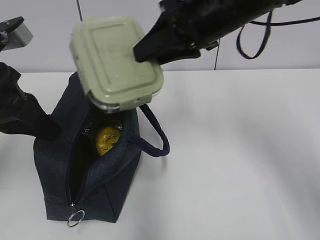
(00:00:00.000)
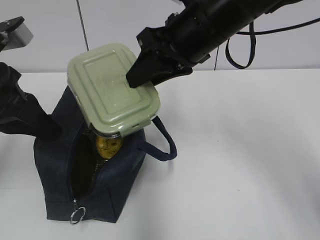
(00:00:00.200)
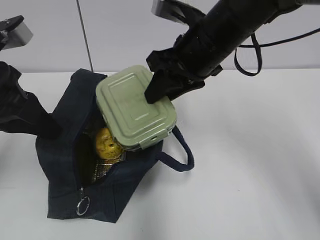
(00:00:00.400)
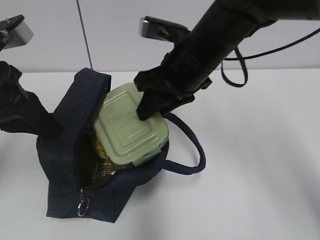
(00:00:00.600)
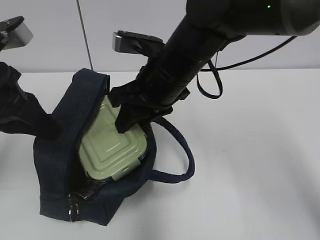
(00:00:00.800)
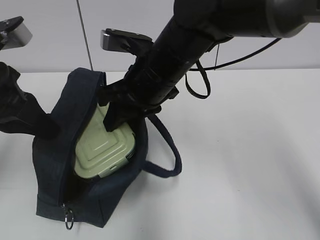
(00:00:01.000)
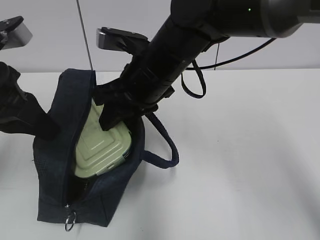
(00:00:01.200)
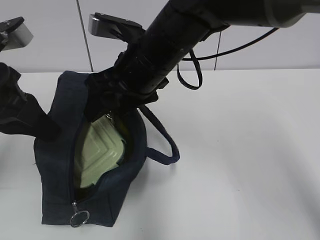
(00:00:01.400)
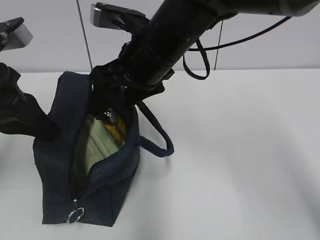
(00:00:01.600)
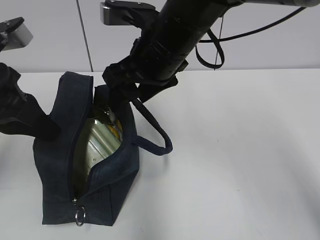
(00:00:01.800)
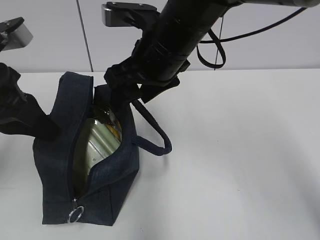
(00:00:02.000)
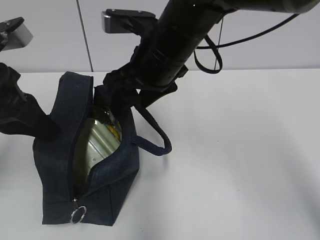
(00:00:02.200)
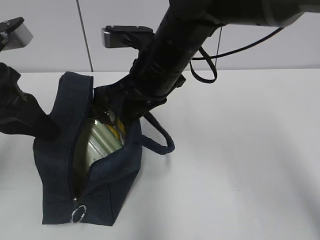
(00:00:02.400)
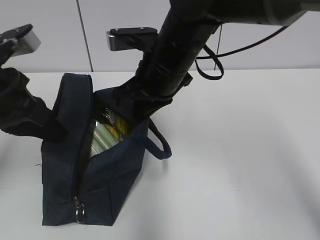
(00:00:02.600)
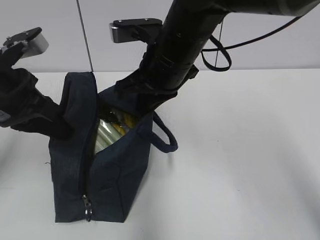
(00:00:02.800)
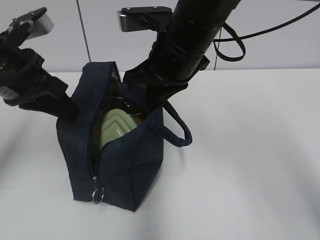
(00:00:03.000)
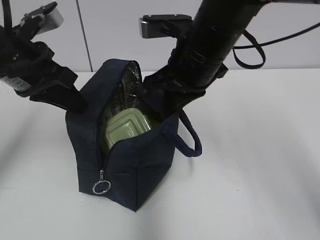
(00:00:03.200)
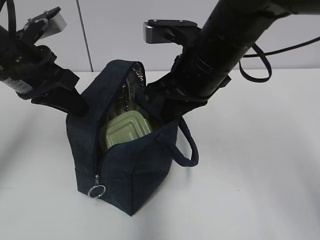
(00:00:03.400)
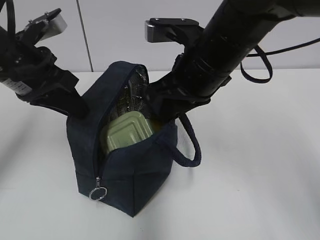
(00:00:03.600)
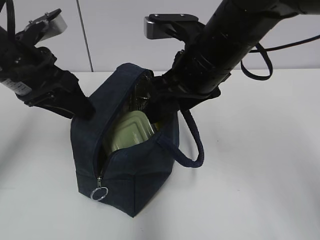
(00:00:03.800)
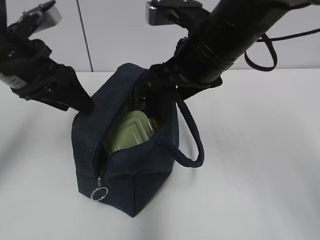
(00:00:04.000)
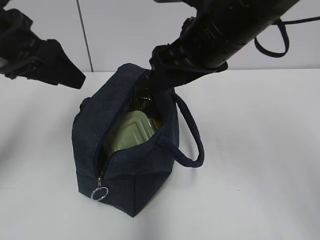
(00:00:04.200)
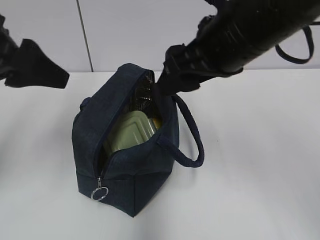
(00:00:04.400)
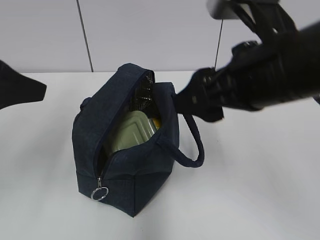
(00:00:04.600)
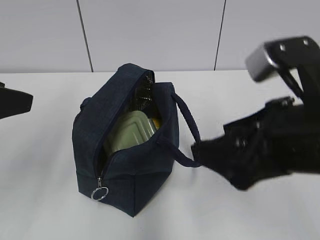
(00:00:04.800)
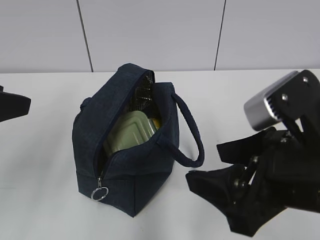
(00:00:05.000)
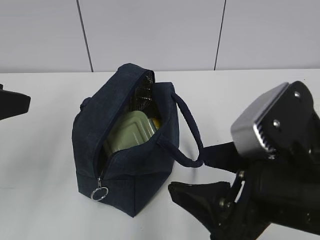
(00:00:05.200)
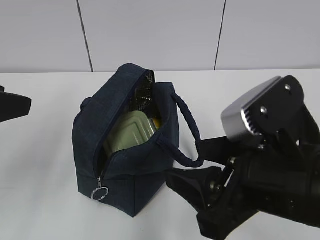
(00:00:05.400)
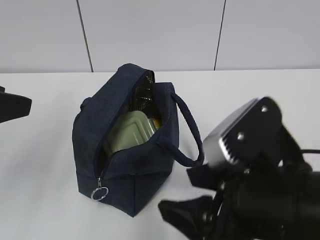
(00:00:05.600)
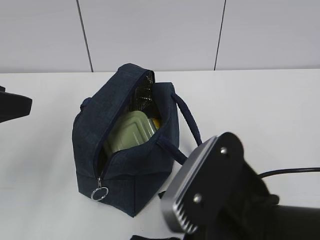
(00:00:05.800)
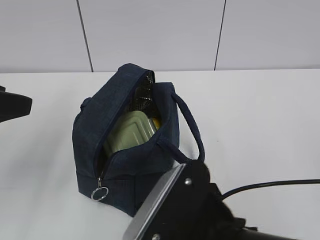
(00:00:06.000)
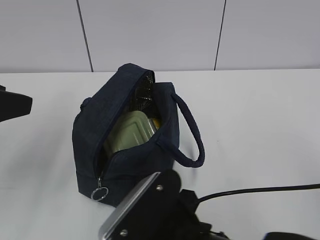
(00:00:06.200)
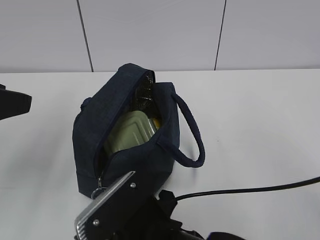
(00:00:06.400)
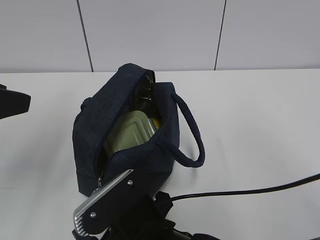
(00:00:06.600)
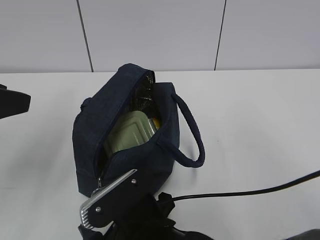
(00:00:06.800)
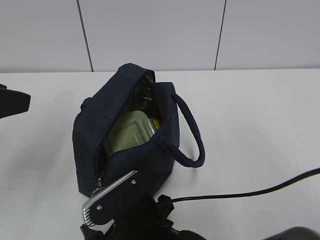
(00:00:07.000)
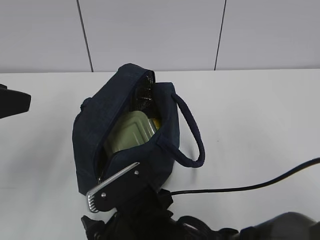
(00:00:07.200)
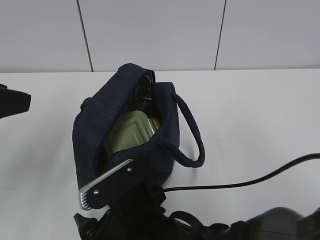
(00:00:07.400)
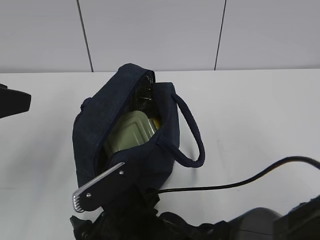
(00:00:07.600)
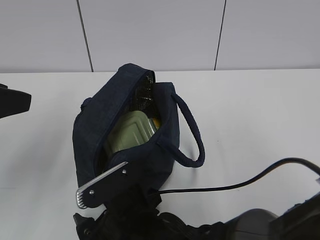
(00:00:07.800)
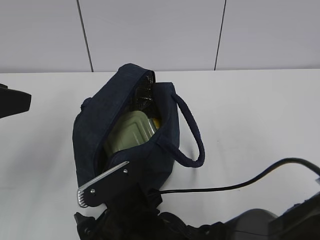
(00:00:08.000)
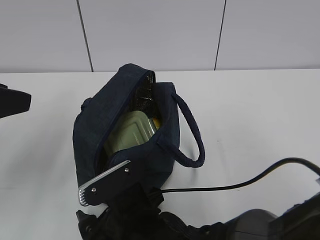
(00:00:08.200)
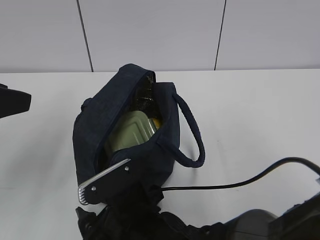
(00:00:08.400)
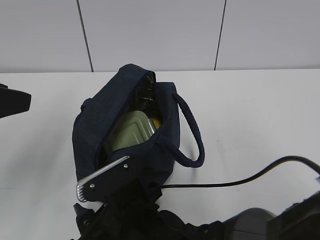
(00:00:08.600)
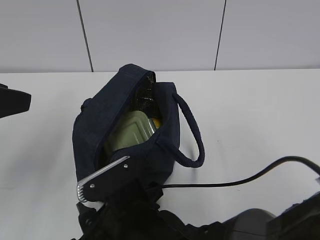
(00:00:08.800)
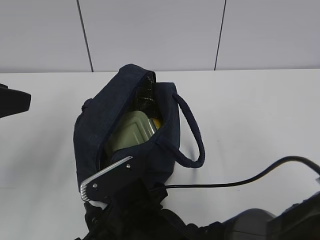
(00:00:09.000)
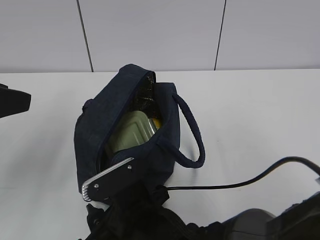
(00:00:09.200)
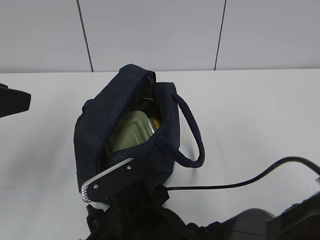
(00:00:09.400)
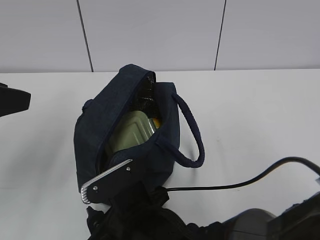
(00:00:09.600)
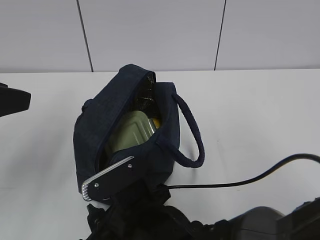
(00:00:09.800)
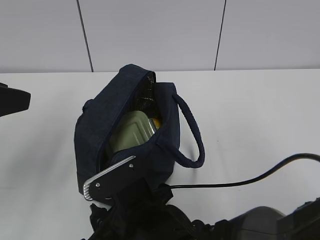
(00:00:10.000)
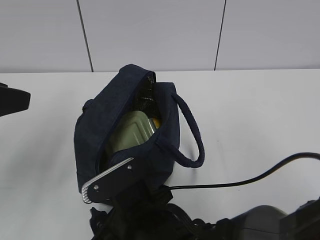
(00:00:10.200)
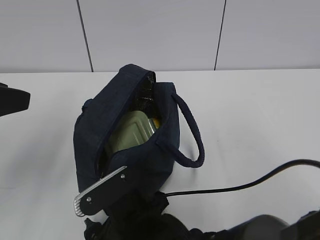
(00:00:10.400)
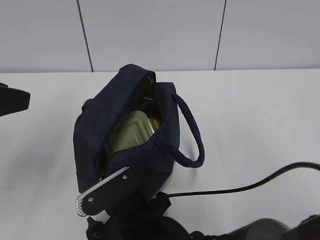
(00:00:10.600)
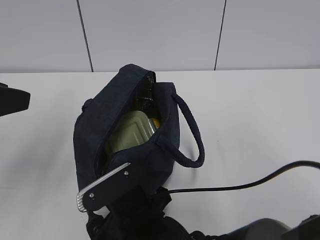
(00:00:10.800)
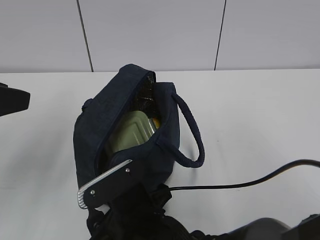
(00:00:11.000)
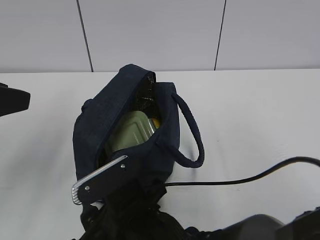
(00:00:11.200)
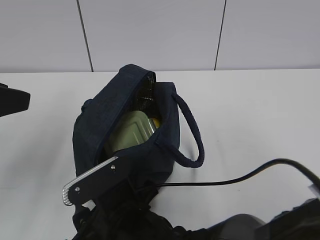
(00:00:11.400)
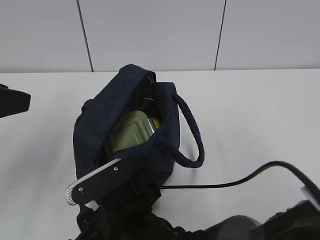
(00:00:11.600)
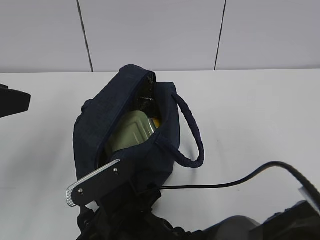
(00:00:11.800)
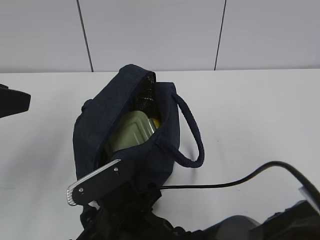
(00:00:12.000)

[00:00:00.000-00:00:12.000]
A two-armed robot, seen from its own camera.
Step, 00:00:01.600 to 00:00:02.200: Grab the lunch bag with your right hand.
Step, 00:00:02.600 to 00:00:03.800: Move the lunch bag to the right.
00:00:00.000 to 00:00:01.600: The right gripper moves to the left, approximately 10 cm, and opens up.
00:00:01.600 to 00:00:03.000: The right gripper closes up.
00:00:03.000 to 00:00:04.400: The right gripper goes approximately 10 cm backward and to the right, and opens up; the left gripper shifts by some 5 cm, and opens.
00:00:04.400 to 00:00:06.000: The left gripper travels backward by approximately 5 cm. Meanwhile the right gripper travels backward and downward by some 20 cm.
00:00:06.000 to 00:00:07.600: The right gripper heads downward, to the left and forward, covering about 15 cm.
00:00:07.600 to 00:00:12.000: The grippers move only a little.

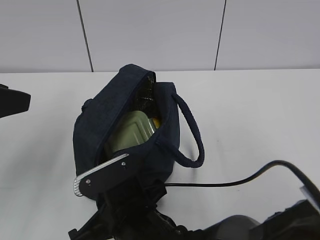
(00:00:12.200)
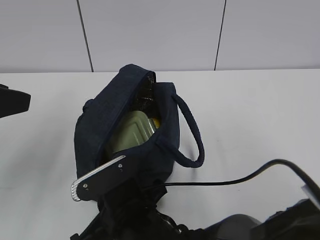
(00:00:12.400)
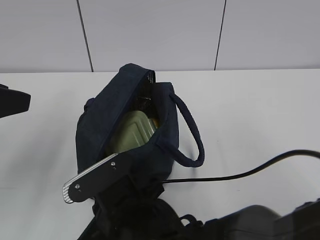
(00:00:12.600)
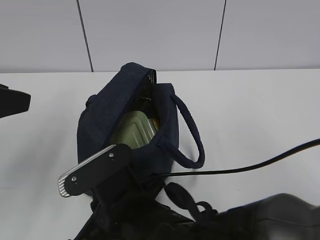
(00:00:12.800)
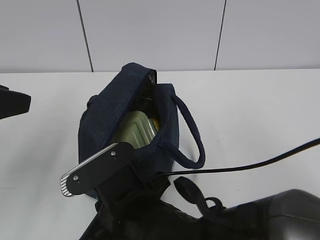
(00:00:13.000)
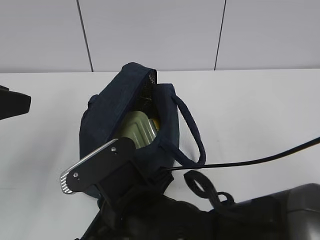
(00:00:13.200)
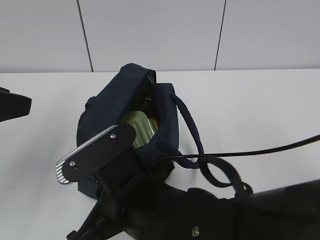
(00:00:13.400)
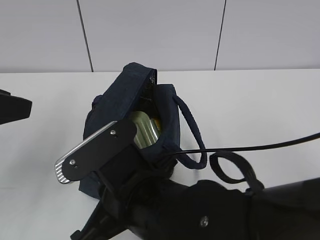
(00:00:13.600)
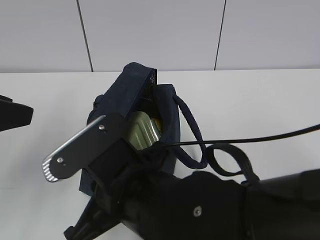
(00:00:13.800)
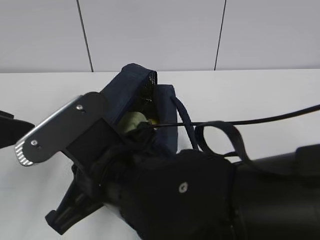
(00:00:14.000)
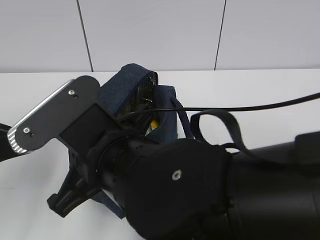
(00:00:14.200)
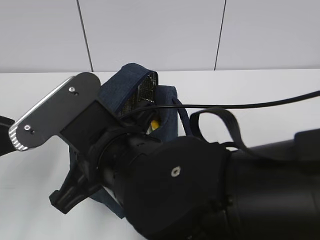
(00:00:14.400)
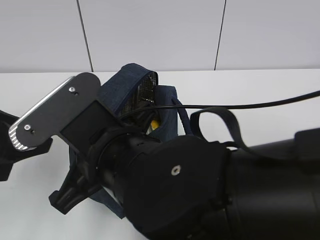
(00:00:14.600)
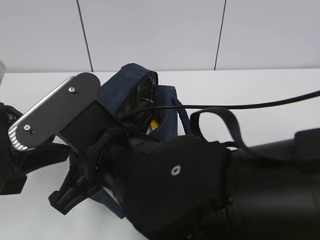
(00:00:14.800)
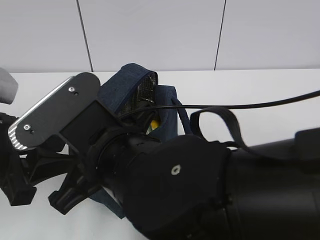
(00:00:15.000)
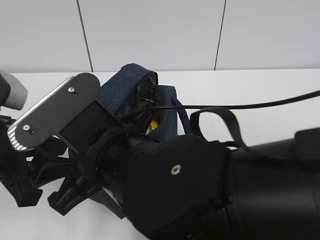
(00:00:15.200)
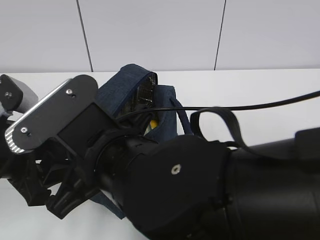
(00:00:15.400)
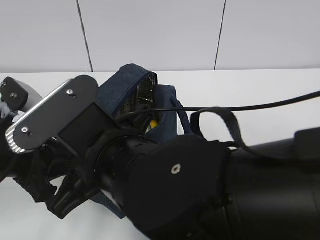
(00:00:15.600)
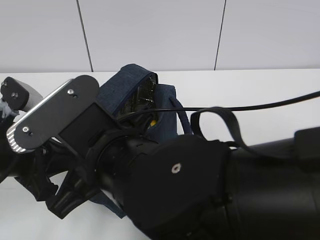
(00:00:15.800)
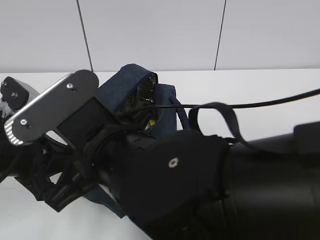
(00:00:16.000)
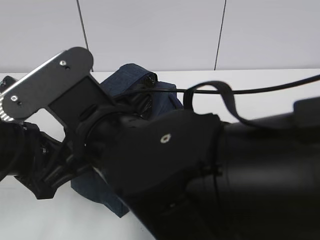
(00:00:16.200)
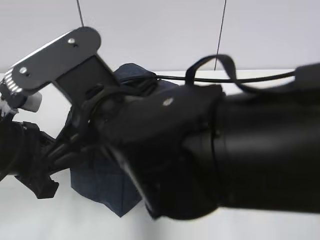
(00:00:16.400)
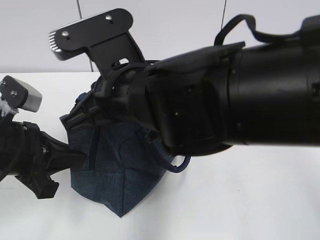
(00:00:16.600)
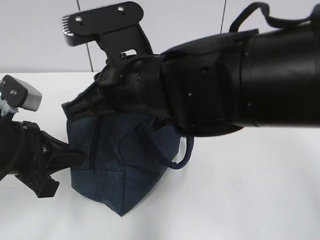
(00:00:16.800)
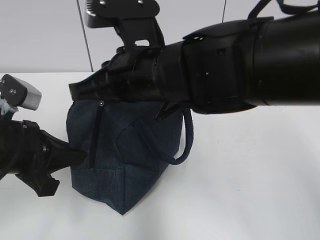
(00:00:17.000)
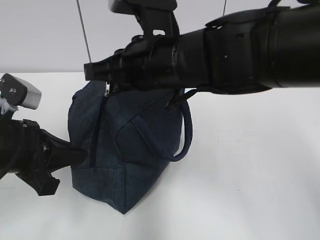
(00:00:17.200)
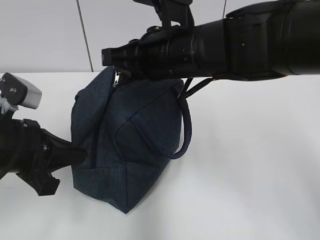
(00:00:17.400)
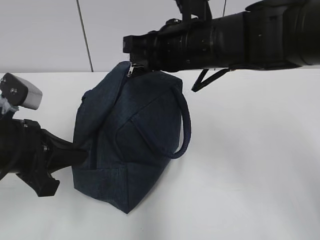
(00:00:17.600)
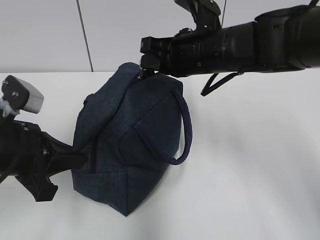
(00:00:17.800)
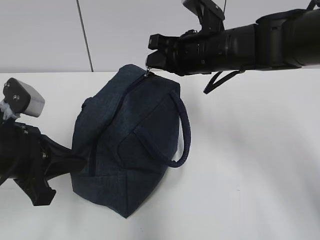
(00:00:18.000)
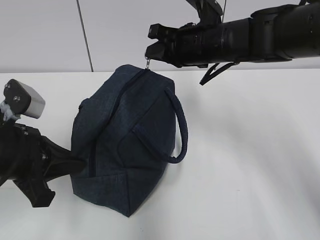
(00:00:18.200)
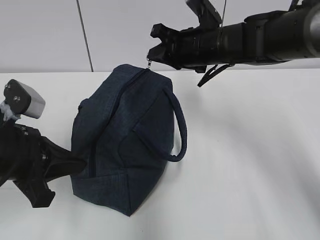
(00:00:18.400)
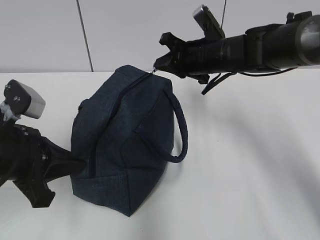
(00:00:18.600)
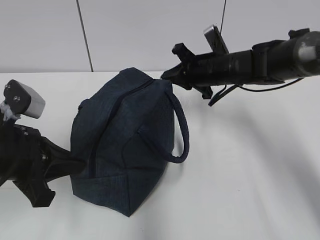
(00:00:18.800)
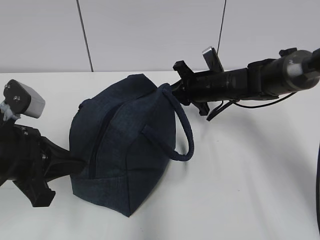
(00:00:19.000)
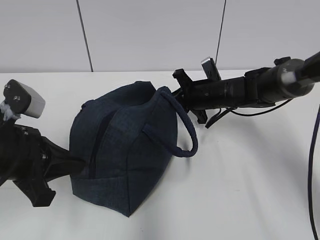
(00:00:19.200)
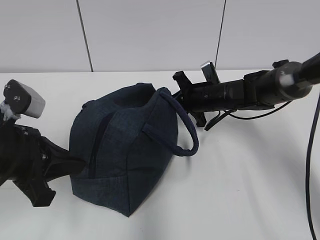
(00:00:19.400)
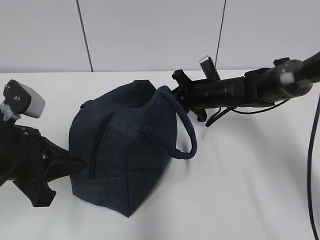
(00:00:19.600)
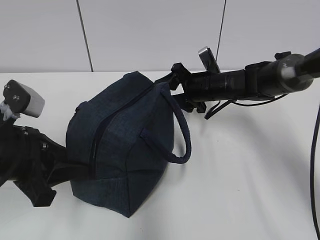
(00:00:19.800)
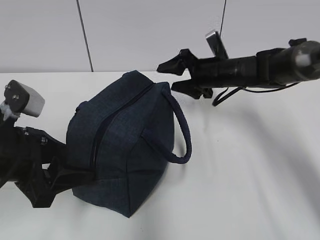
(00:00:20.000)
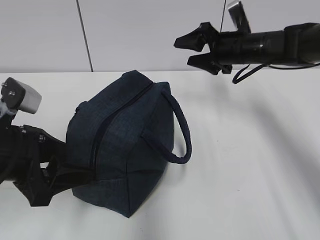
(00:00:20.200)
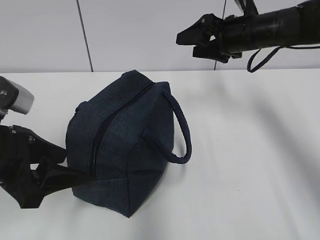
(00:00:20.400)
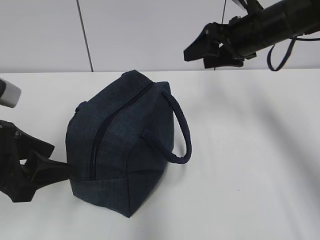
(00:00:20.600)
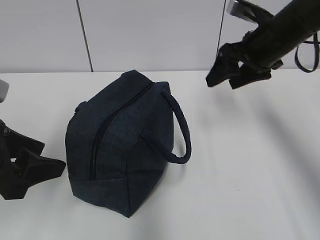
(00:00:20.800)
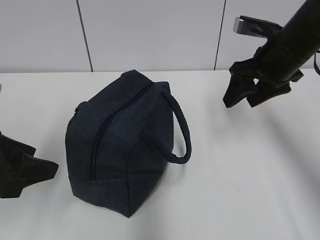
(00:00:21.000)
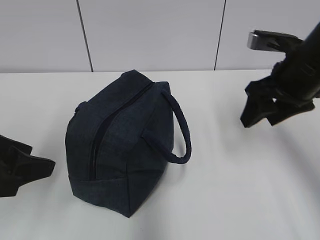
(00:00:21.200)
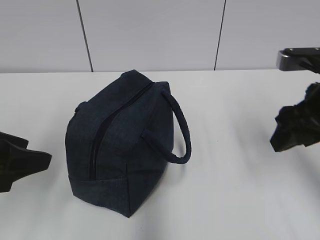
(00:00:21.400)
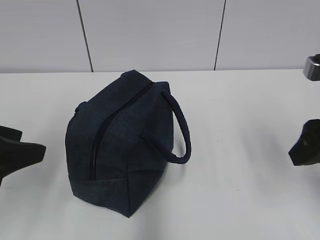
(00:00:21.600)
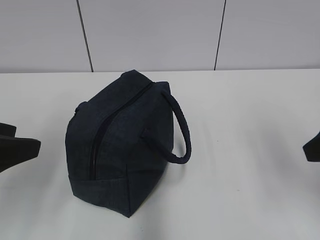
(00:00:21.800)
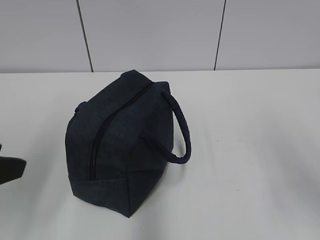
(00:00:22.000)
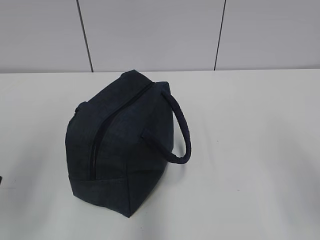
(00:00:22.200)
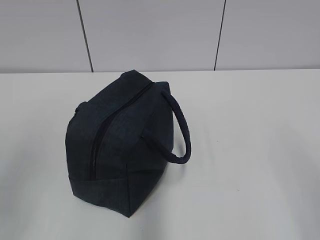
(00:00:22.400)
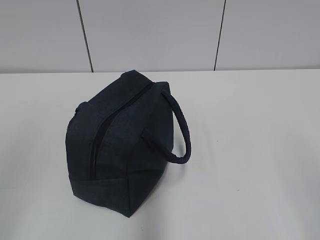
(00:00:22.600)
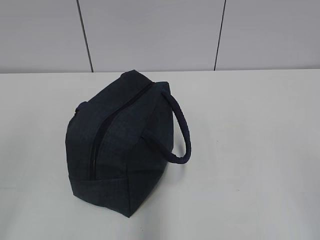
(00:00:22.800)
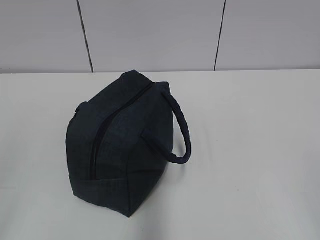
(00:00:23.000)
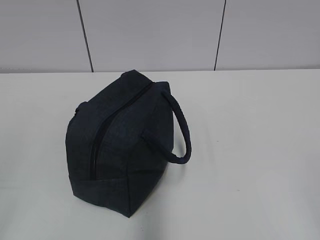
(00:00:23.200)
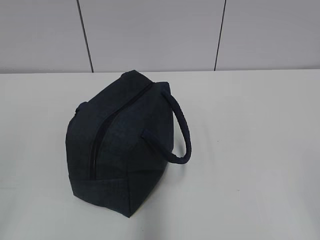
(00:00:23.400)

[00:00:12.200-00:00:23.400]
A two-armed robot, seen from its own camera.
Step, 00:00:12.200 to 00:00:16.000: Grab the lunch bag with your left hand.
Step, 00:00:16.200 to 00:00:19.600: Pull the zipper with your right hand.
00:00:12.200 to 00:00:13.800: The right gripper shifts some 10 cm upward.
00:00:13.800 to 00:00:15.400: The left gripper goes some 10 cm downward.
00:00:15.400 to 00:00:17.000: The right gripper goes roughly 10 cm forward. The left gripper closes up.
00:00:17.000 to 00:00:18.600: The right gripper goes approximately 20 cm forward, to the right and downward.
00:00:18.600 to 00:00:20.200: The left gripper opens. Meanwhile the right gripper travels to the right by roughly 5 cm, goes downward and returns, approximately 10 cm each way, and opens.
00:00:20.200 to 00:00:21.800: The left gripper heads upward and backward, covering approximately 10 cm, while the right gripper shifts roughly 30 cm backward.
00:00:21.800 to 00:00:23.400: The left gripper moves backward and to the left, about 15 cm. Meanwhile the right gripper shifts roughly 20 cm backward.
